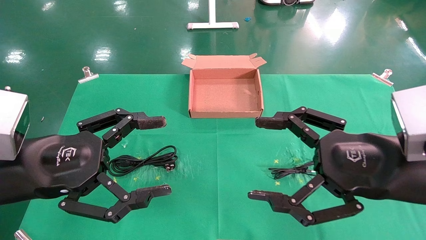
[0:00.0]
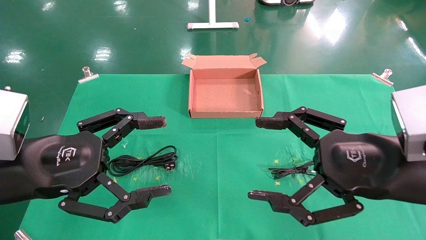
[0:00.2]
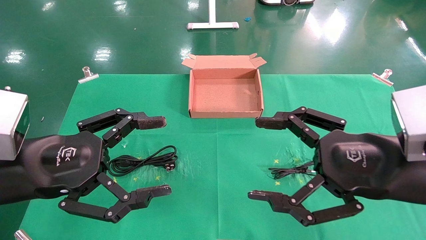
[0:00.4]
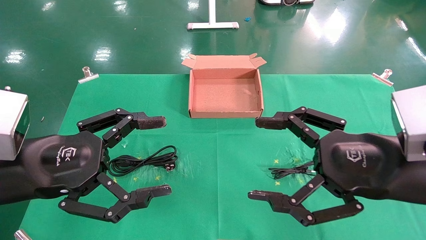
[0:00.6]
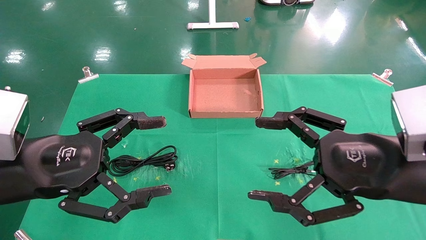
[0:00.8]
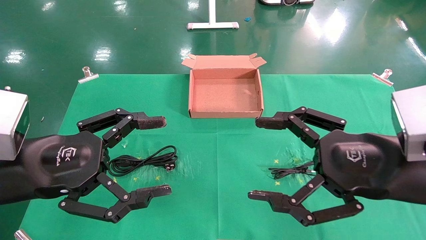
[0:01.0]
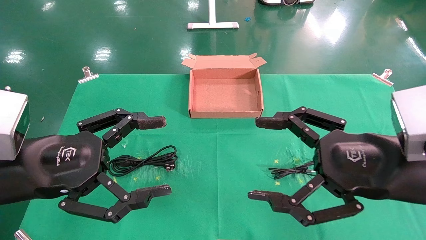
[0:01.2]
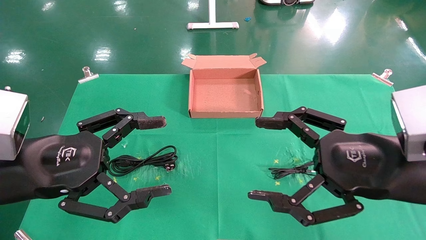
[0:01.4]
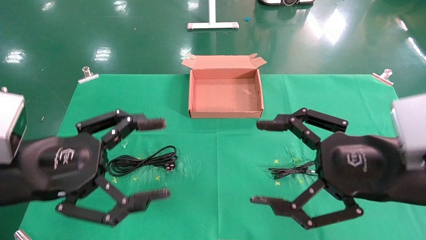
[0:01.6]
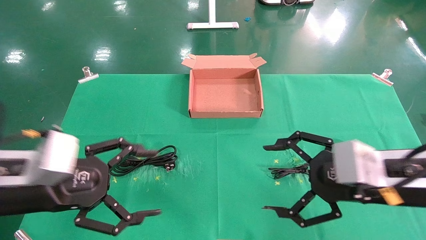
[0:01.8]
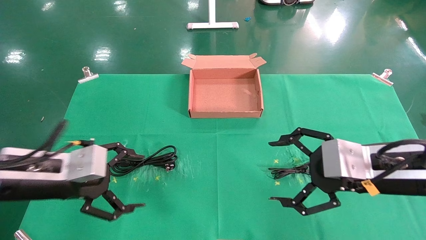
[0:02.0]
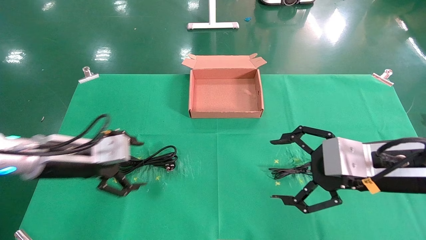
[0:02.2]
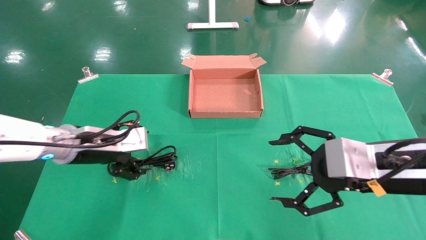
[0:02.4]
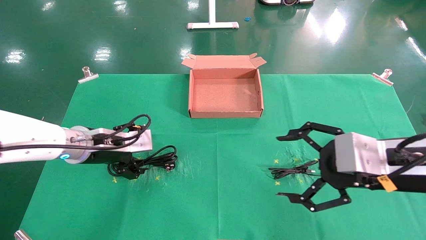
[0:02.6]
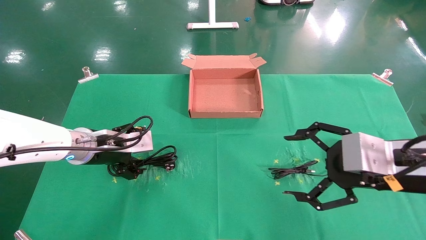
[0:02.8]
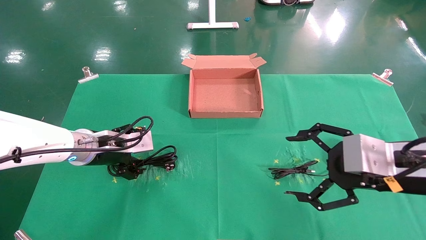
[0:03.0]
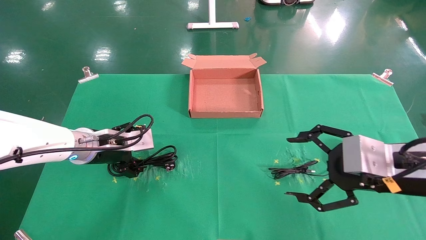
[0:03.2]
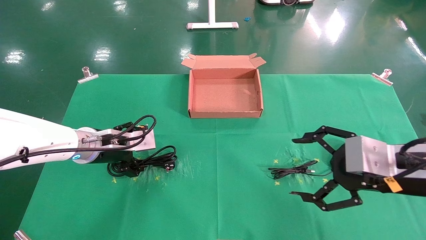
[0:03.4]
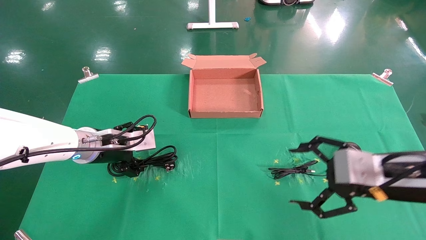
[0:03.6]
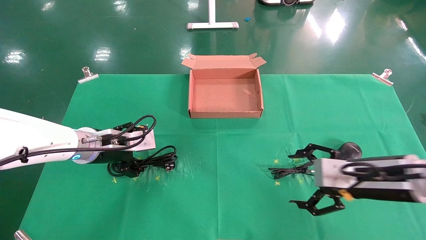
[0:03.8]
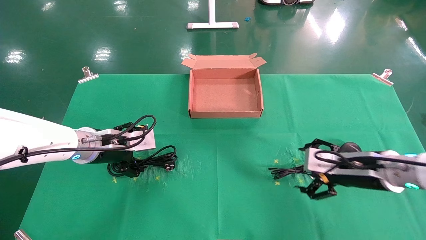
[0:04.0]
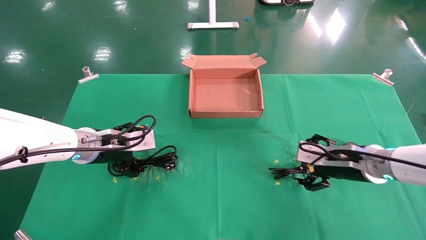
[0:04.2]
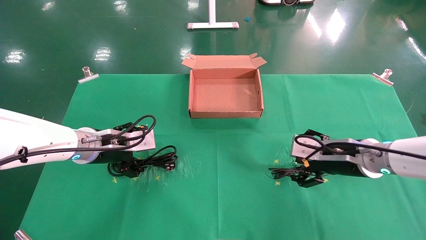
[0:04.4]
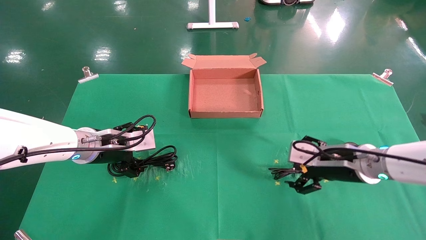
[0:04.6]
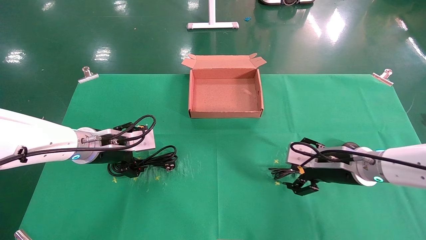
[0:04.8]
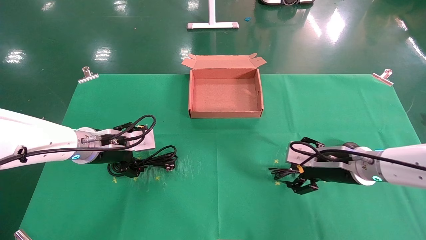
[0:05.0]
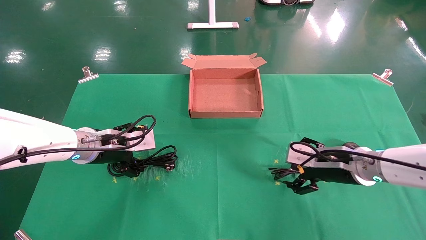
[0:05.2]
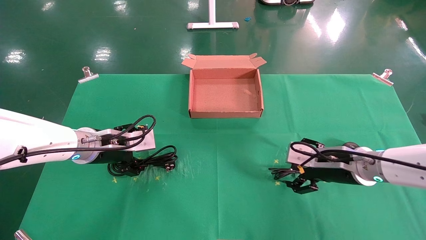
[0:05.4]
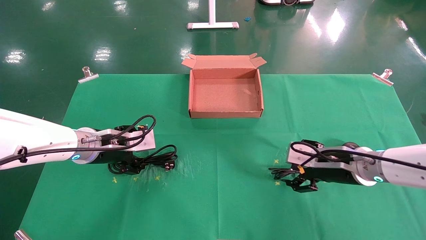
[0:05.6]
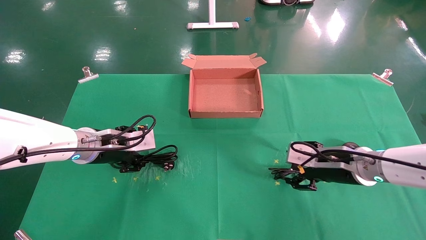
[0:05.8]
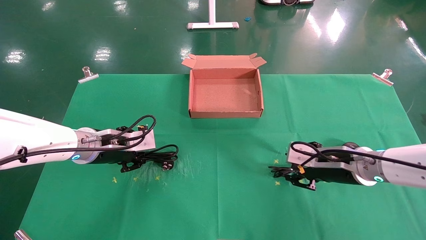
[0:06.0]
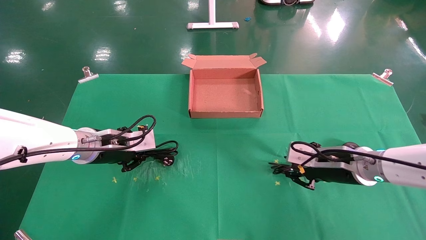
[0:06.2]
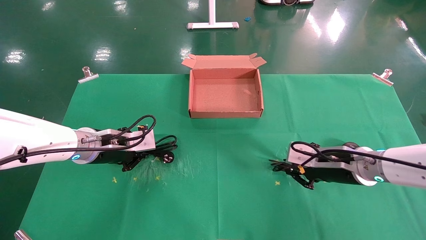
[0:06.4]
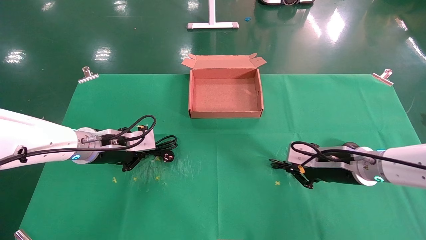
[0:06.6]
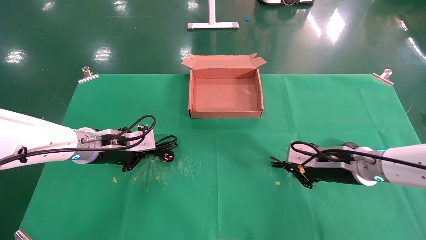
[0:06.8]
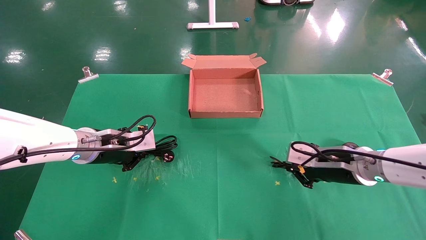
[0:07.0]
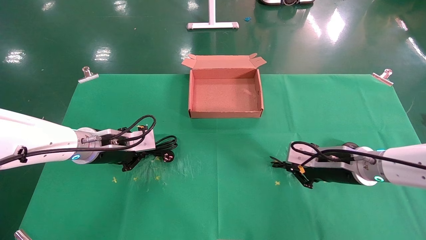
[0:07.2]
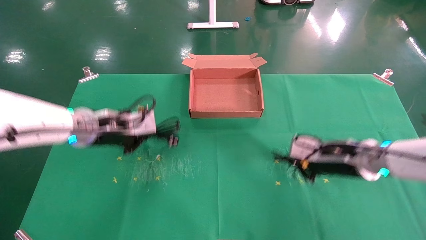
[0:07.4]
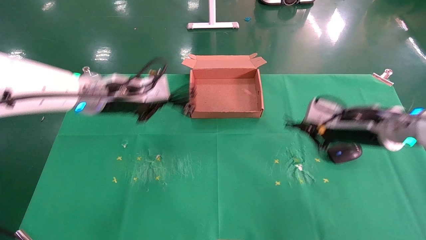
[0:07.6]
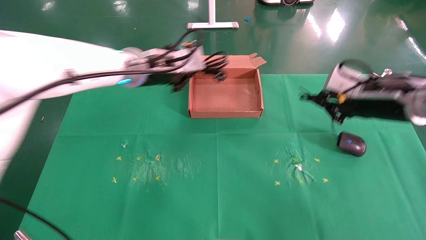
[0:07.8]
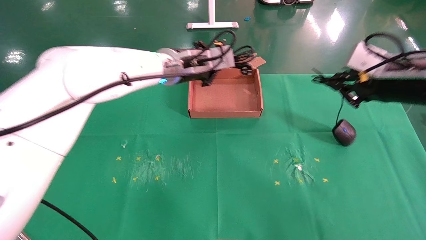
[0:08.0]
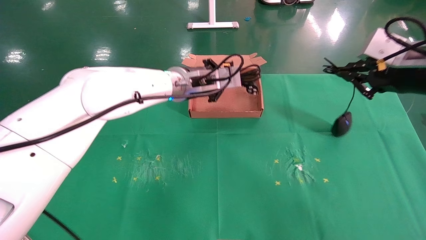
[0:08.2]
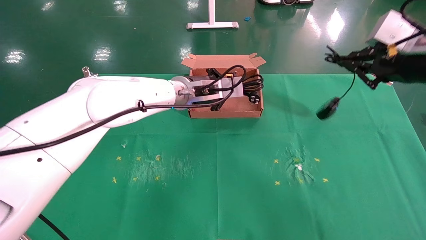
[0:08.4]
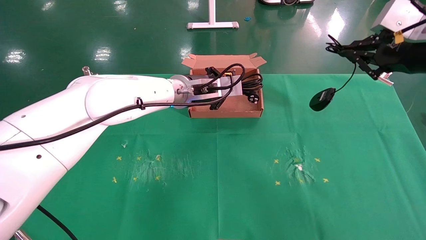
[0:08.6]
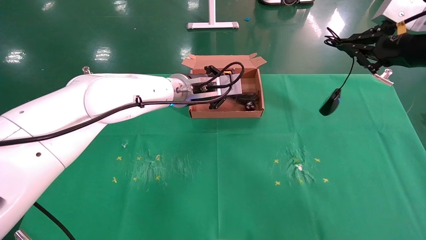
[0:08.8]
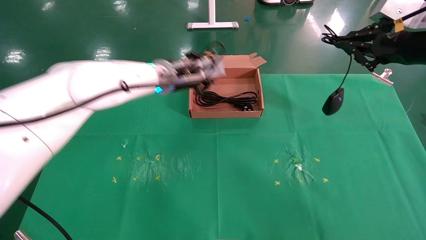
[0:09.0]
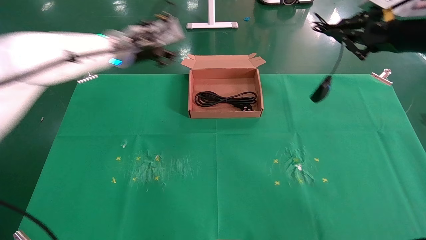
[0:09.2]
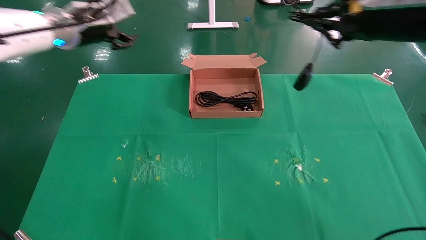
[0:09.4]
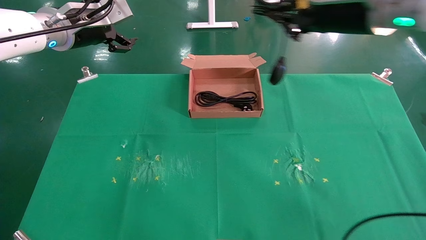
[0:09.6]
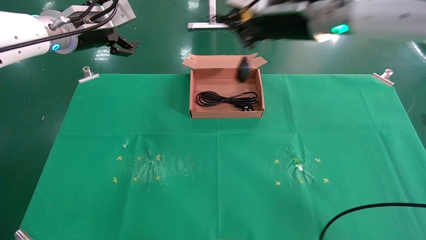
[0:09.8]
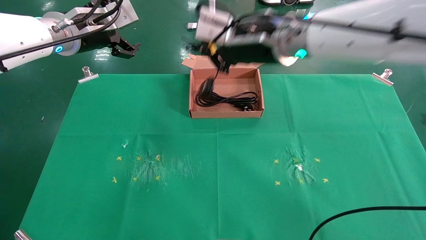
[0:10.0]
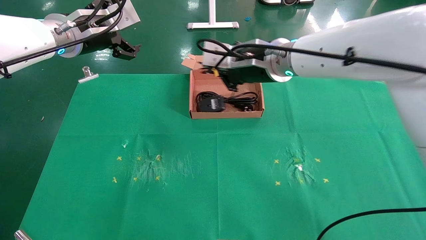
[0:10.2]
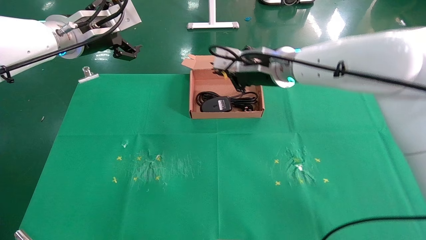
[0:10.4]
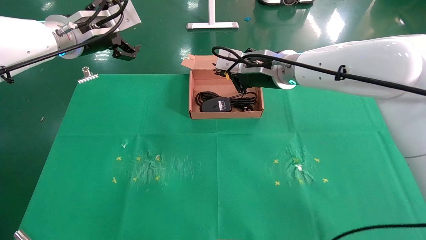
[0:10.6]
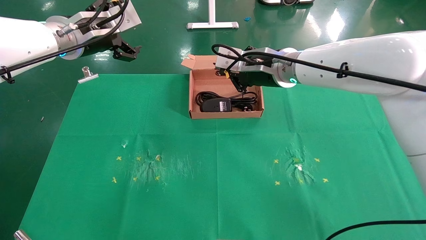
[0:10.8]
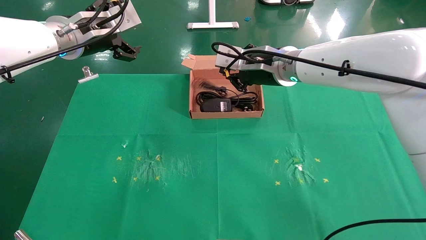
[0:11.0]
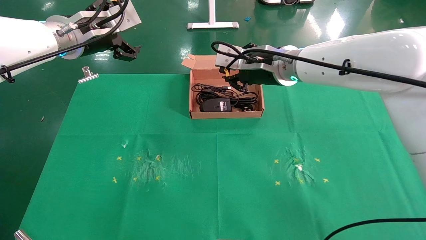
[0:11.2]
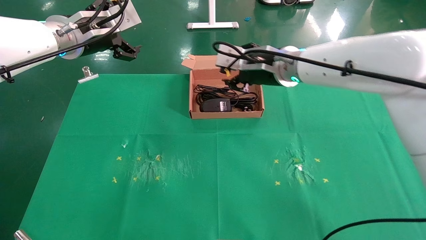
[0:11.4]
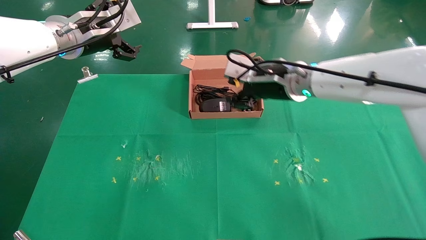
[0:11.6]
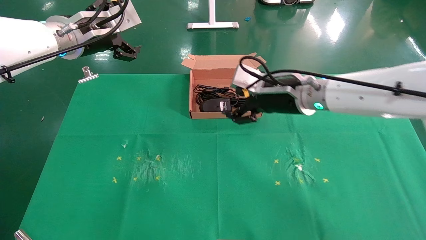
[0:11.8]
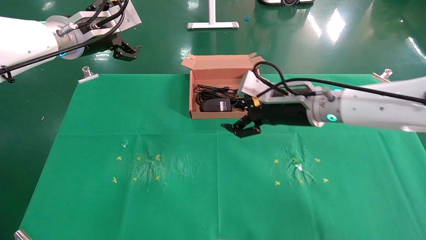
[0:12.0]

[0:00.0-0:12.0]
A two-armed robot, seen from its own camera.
Task of the whole recording: grasp data cable left put into box grasp mouse right put into box.
Step, 0:01.8 to 0:07.0: Simultaneously pick up the mouse and power cord from the accessory packaging area.
Step, 0:07.2 to 0:11.2: Place the mouse and power cord into the box.
0:00.0 to 0:01.6: The grippers stay close to where they were, moving slightly.
0:01.6 to 0:03.0: The left gripper is displaced forward by some 15 cm.
0:03.0 to 0:04.4: The right gripper heads forward and downward, covering some 15 cm.
0:04.4 to 0:06.0: The right gripper closes its fingers, while the left gripper closes its fingers.
0:06.0 to 0:07.6: The right gripper goes about 10 cm upward, and closes up, while the left gripper moves upward and to the right, approximately 10 cm, and closes its fingers.
0:07.6 to 0:09.0: The left gripper moves forward and to the right, roughly 10 cm. Meanwhile the right gripper moves upward, approximately 15 cm.
0:09.0 to 0:10.4: The left gripper shifts some 15 cm to the left, upward and backward, and opens, while the right gripper heads to the left and forward, covering some 25 cm.
0:10.4 to 0:12.0: The right gripper moves downward and to the right, roughly 10 cm, and opens up.

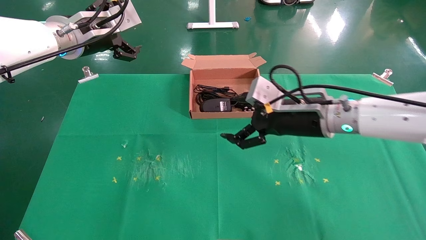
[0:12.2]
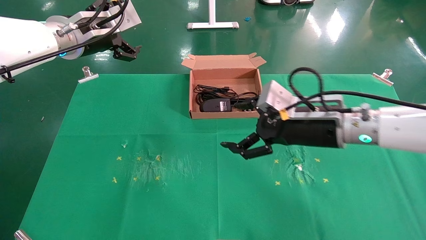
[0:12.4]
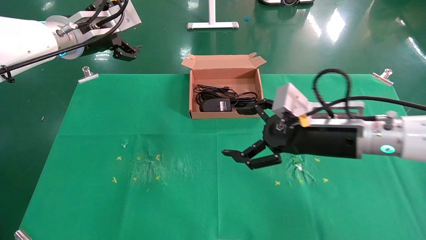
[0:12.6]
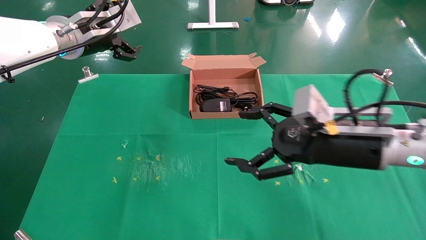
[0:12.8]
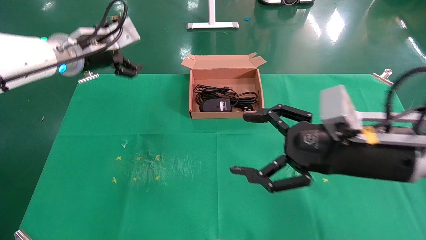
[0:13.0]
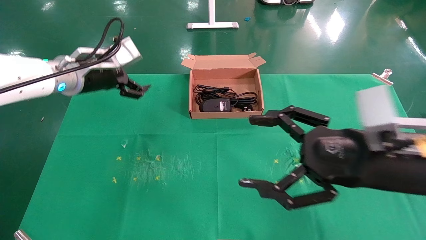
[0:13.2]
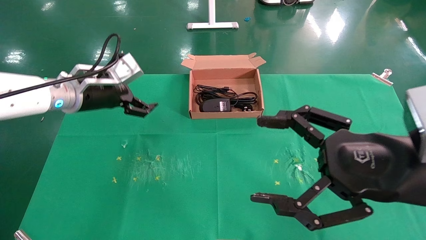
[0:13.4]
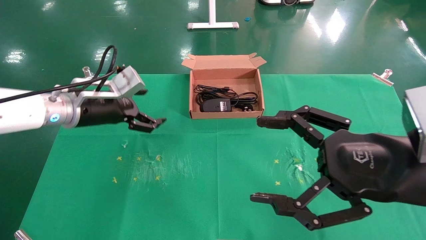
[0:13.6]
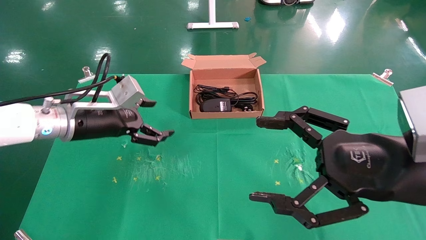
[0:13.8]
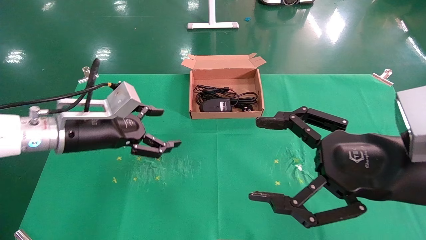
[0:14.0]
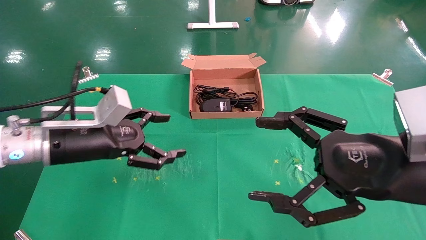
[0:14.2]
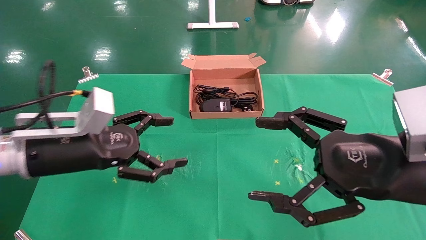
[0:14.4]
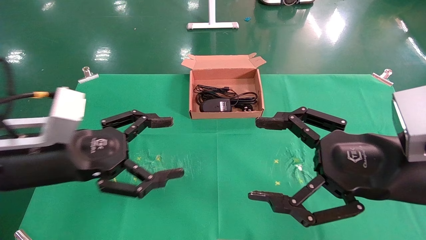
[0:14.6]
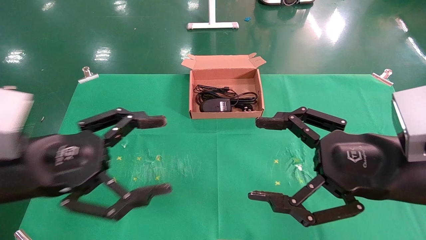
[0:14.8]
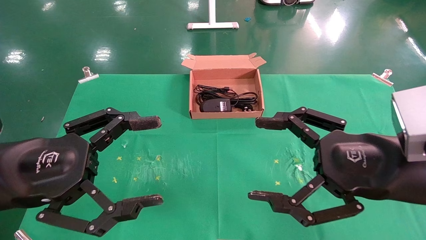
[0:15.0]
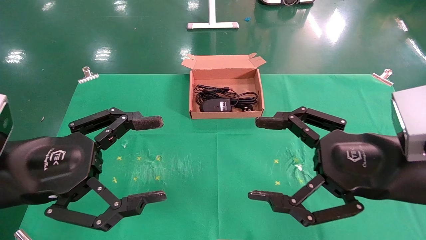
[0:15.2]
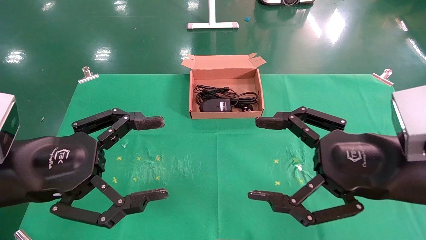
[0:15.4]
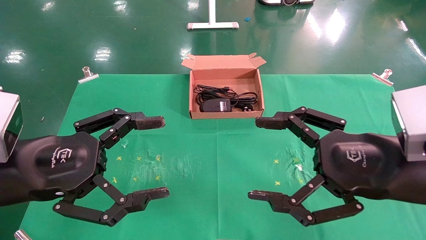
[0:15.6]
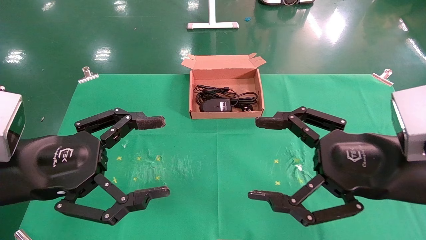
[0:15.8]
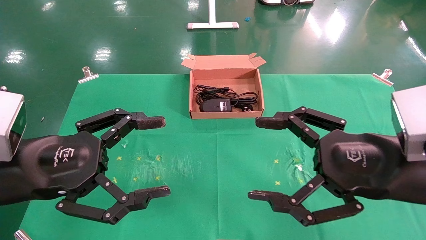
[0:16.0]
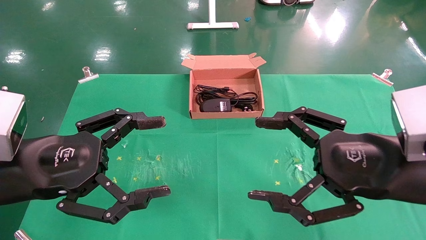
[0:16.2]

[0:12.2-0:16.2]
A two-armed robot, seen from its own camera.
Task of the whole recording: grasp data cable left put into box grasp mouse right put into box.
0:12.2 to 0:13.6: The left gripper goes some 15 cm downward, while the right gripper is displaced backward and to the right by about 20 cm.
0:13.6 to 0:14.8: The left gripper shifts some 15 cm backward.
0:14.8 to 0:16.2: The grippers stay close to where they were, moving slightly.
